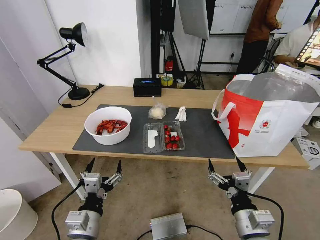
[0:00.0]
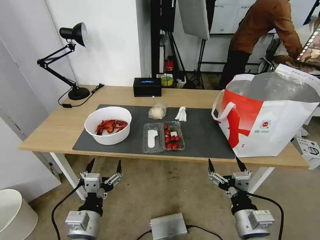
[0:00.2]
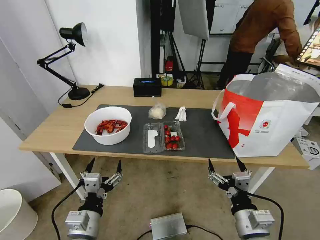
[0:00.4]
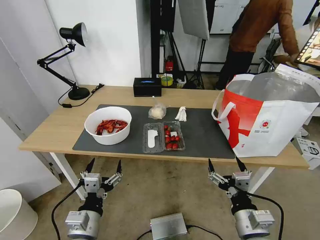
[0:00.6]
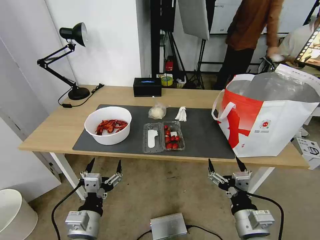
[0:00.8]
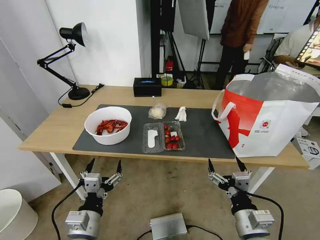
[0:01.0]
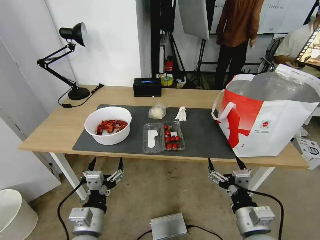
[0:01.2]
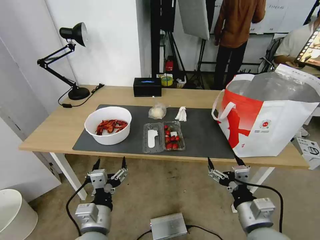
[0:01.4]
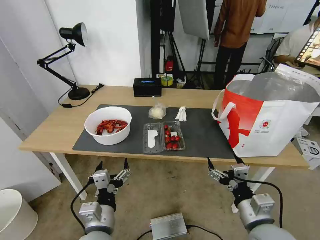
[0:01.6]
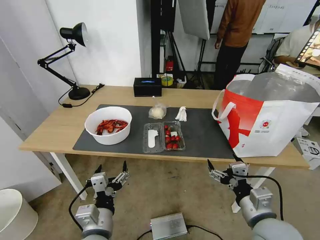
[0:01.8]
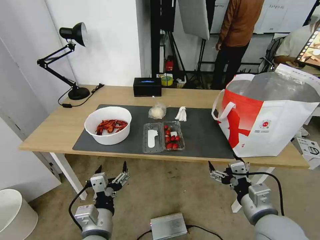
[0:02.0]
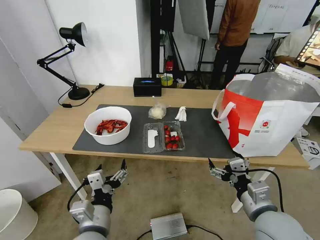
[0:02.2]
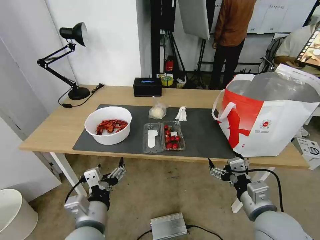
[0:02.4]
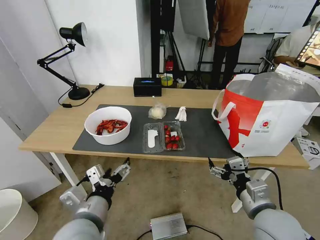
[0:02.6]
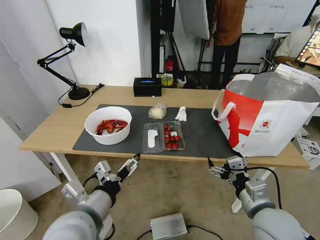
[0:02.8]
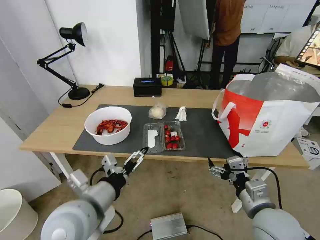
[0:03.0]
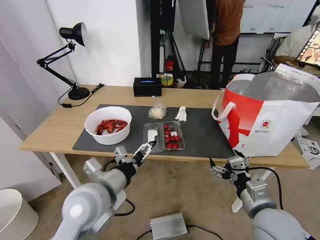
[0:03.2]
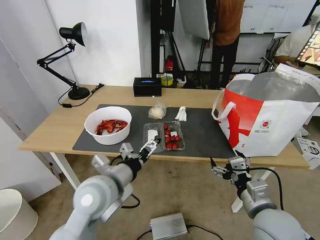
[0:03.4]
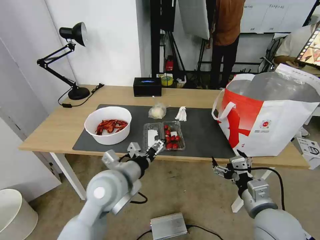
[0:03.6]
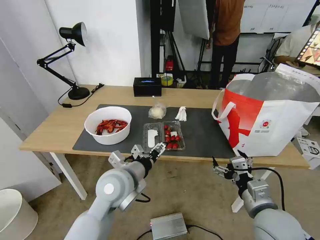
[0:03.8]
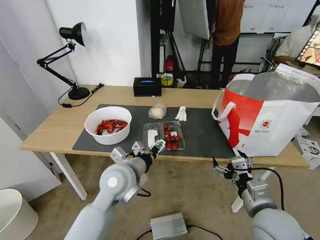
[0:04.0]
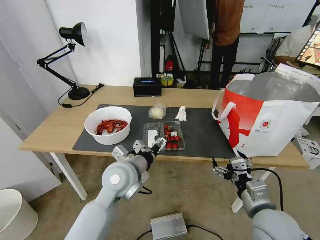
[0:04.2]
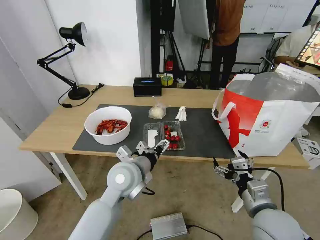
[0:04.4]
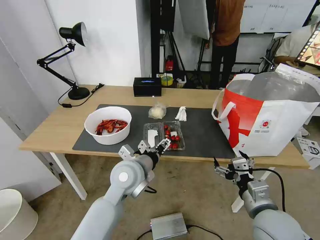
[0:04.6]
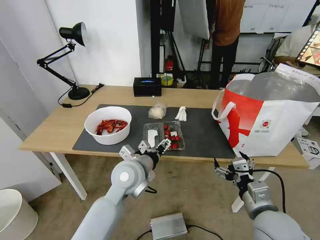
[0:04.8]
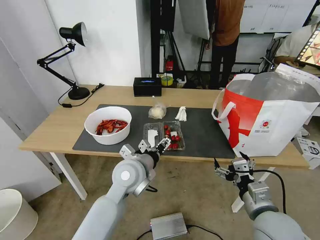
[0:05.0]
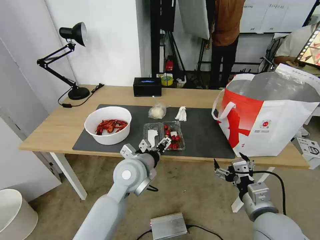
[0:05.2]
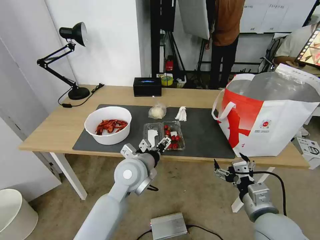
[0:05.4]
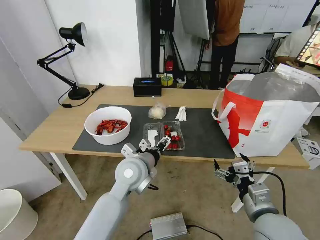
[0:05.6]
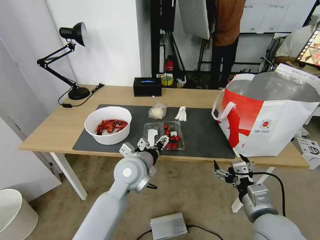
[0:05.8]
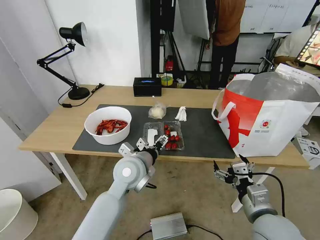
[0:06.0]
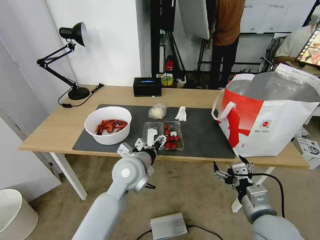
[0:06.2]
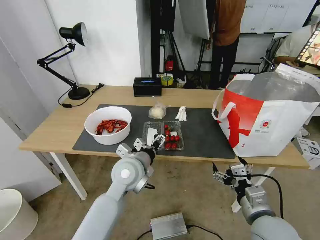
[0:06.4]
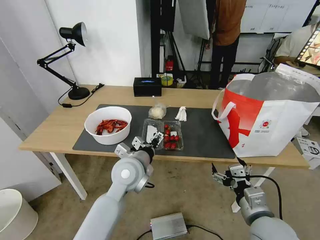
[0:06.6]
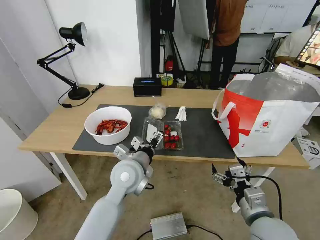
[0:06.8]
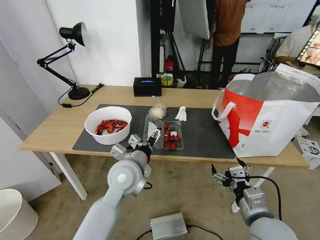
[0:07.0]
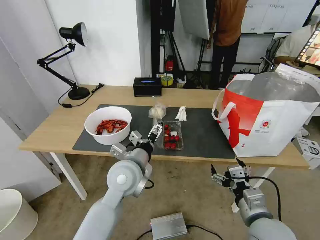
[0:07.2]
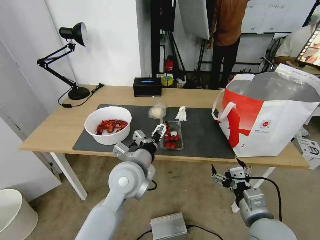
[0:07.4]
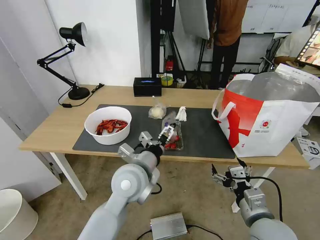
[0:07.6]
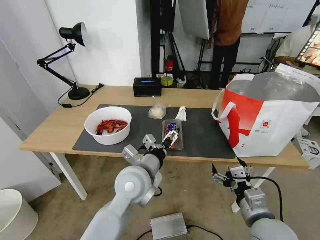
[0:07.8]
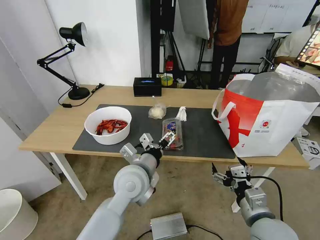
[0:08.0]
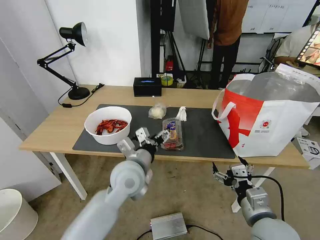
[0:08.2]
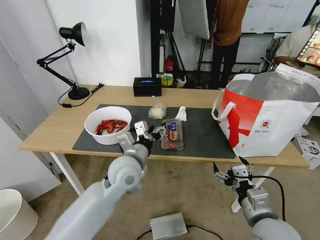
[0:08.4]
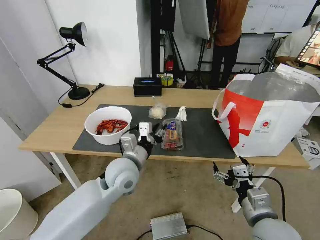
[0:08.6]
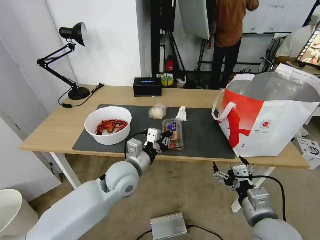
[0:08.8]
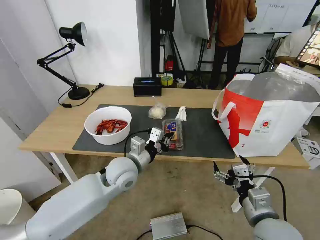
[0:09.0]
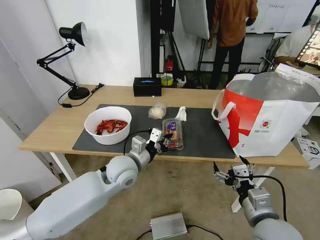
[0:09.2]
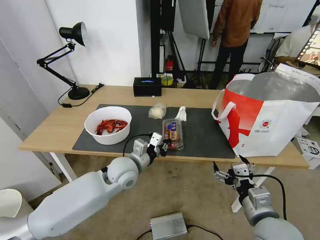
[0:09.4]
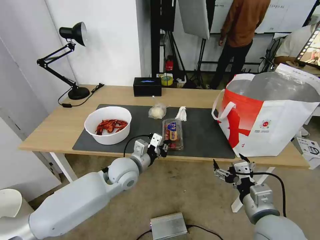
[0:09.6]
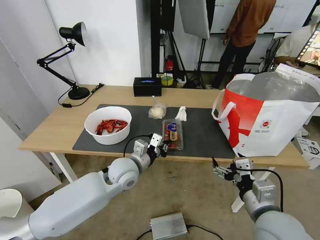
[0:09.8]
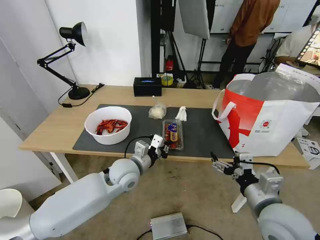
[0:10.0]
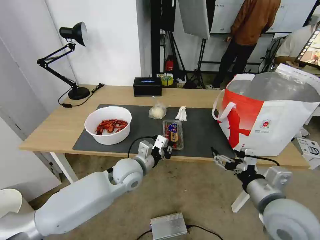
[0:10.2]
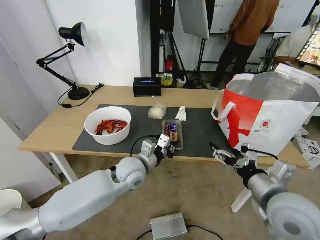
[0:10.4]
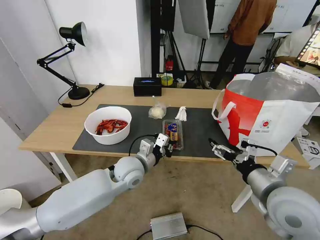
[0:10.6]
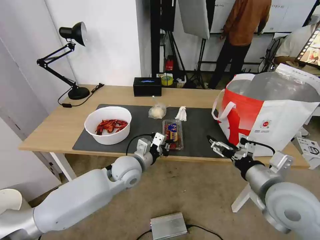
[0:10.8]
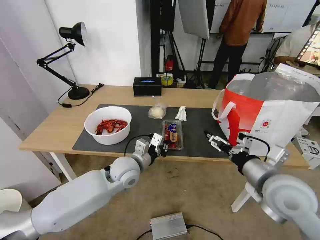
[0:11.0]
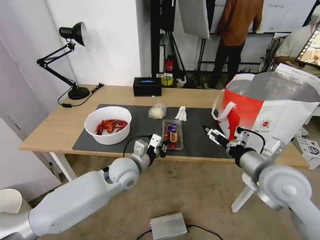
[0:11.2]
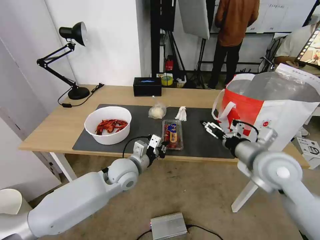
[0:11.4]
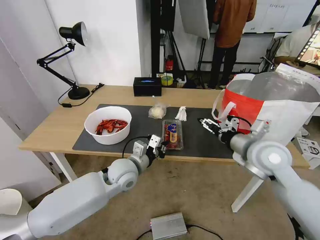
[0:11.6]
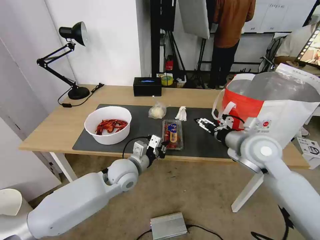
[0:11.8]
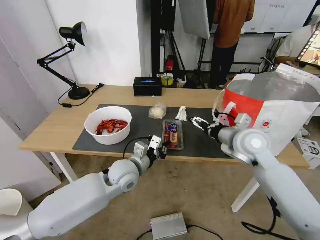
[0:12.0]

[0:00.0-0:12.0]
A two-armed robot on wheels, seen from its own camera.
Task of the whole recording: Pick up the trash from the table and place it into the takeout bag.
0:01.6 to 0:03.0: The left gripper moves upward, approximately 10 cm.
0:03.0 to 0:04.4: The left gripper shifts approximately 15 cm forward and to the right.
0:04.4 to 0:06.0: The grippers make only small movements.
0:06.0 to 0:07.6: The left gripper shifts by roughly 5 cm.
0:07.6 to 0:09.0: The left gripper goes about 5 cm forward, and closes its fingers.
0:09.0 to 0:10.4: The right gripper heads upward, covering roughly 5 cm.
0:10.4 to 0:12.0: The right gripper travels forward by about 20 cm.

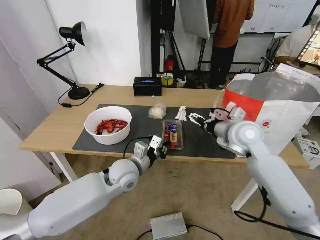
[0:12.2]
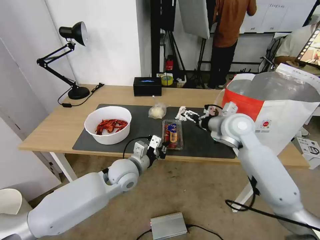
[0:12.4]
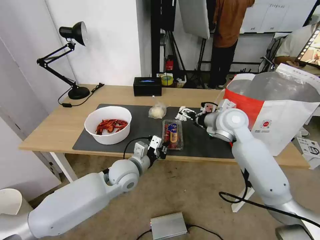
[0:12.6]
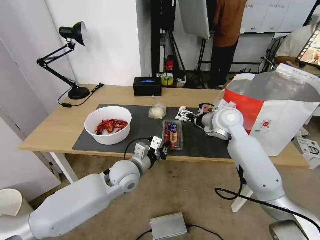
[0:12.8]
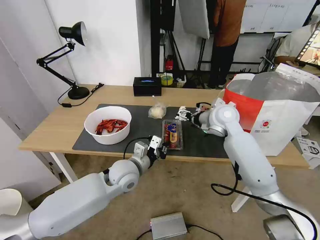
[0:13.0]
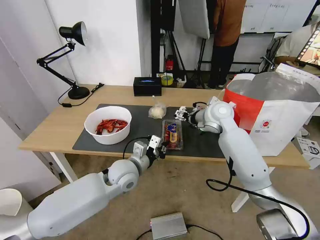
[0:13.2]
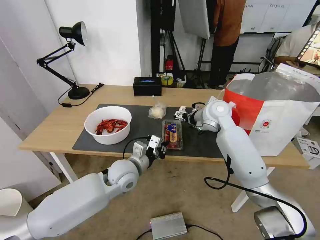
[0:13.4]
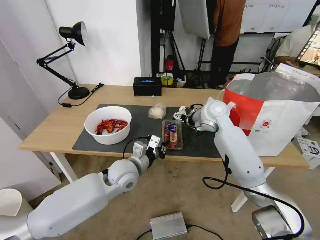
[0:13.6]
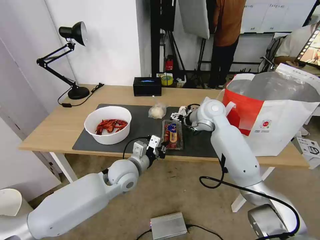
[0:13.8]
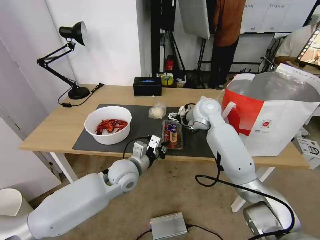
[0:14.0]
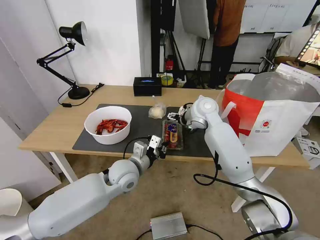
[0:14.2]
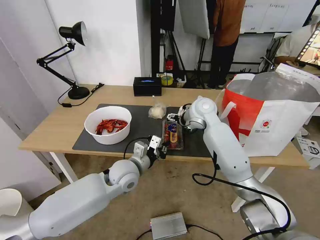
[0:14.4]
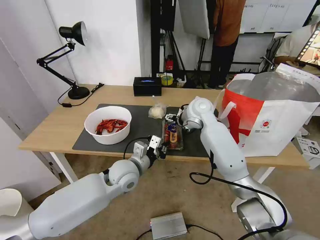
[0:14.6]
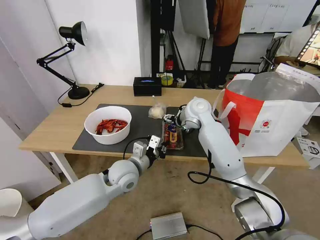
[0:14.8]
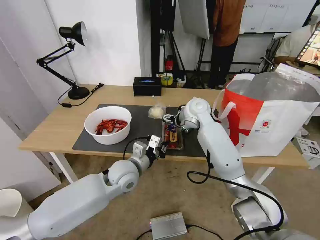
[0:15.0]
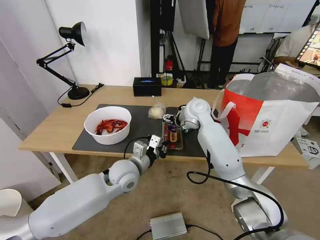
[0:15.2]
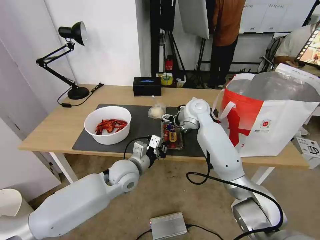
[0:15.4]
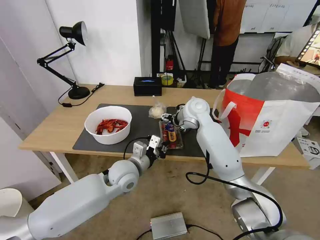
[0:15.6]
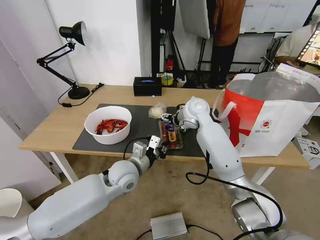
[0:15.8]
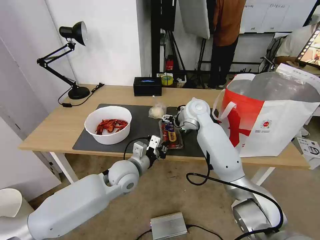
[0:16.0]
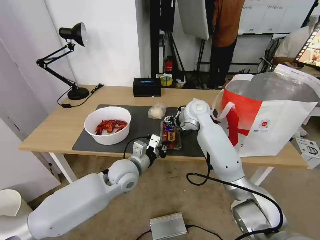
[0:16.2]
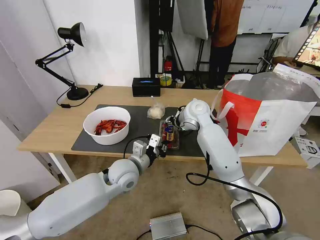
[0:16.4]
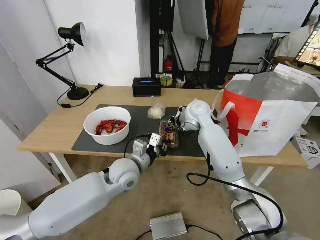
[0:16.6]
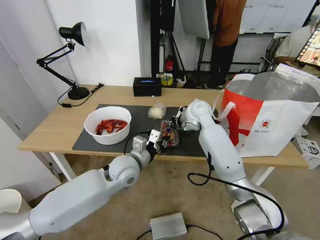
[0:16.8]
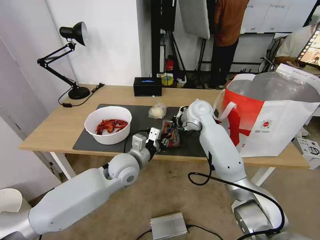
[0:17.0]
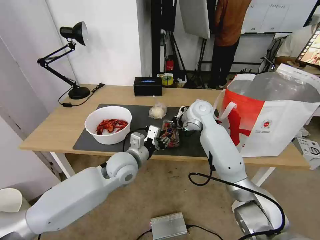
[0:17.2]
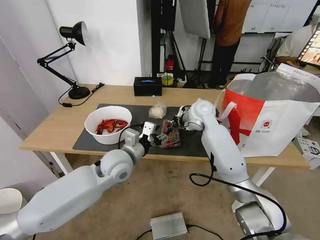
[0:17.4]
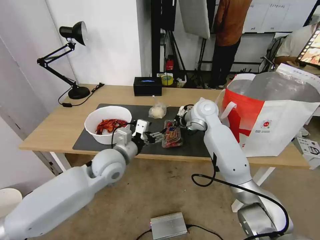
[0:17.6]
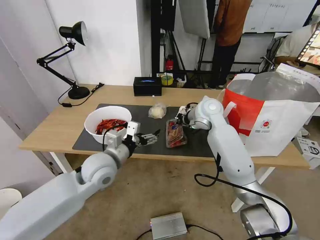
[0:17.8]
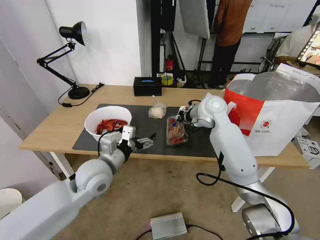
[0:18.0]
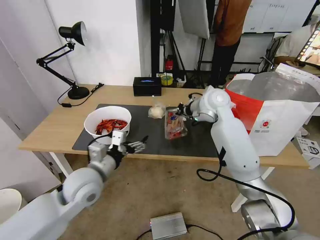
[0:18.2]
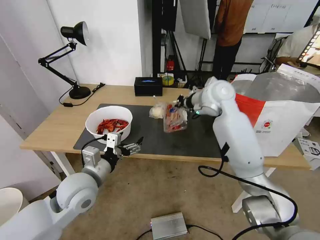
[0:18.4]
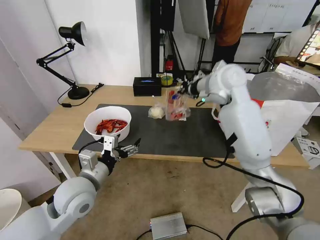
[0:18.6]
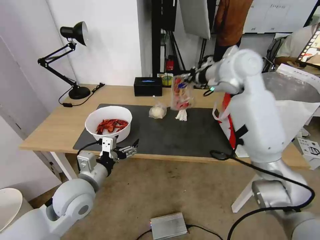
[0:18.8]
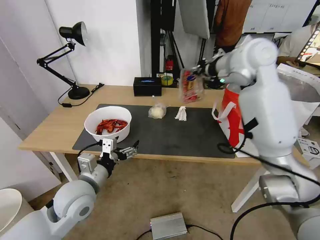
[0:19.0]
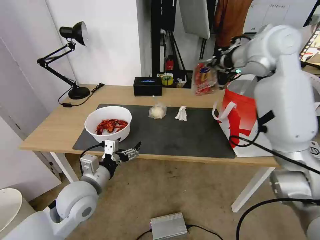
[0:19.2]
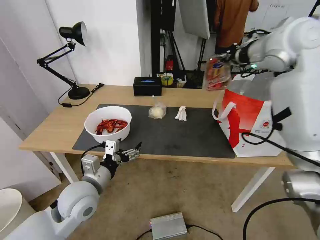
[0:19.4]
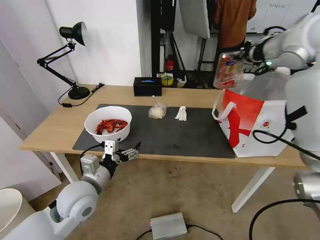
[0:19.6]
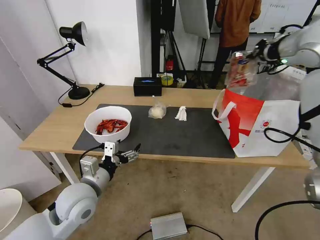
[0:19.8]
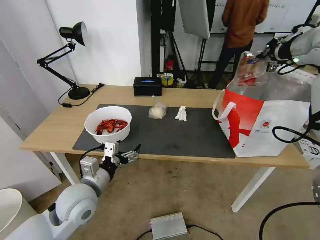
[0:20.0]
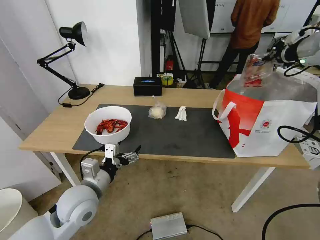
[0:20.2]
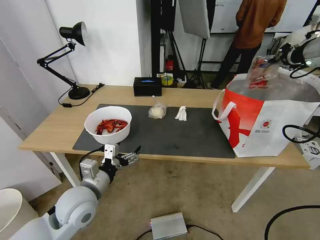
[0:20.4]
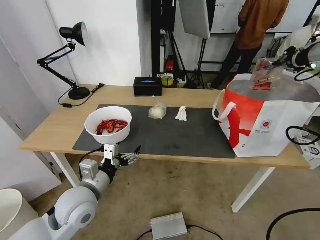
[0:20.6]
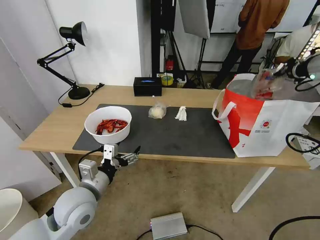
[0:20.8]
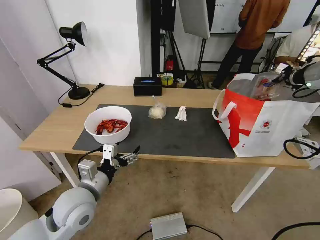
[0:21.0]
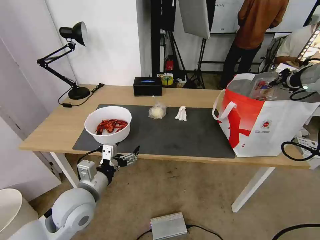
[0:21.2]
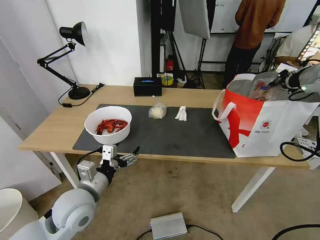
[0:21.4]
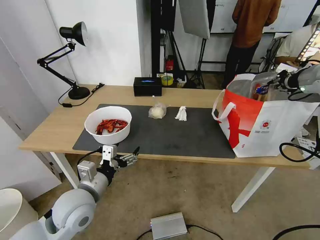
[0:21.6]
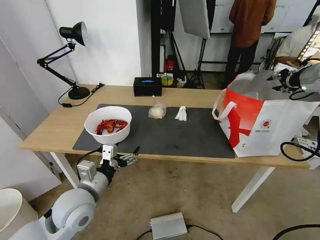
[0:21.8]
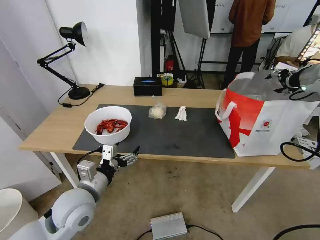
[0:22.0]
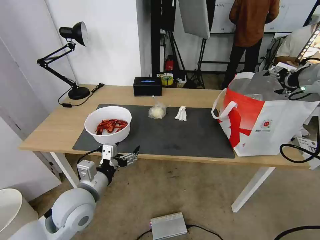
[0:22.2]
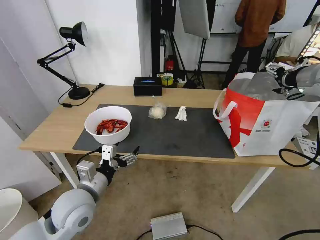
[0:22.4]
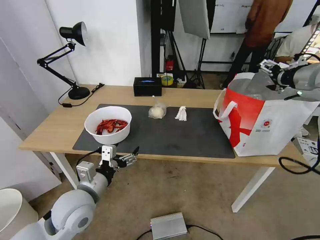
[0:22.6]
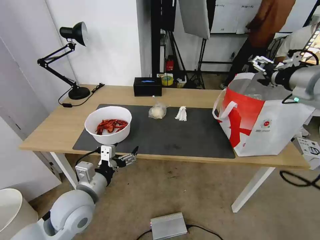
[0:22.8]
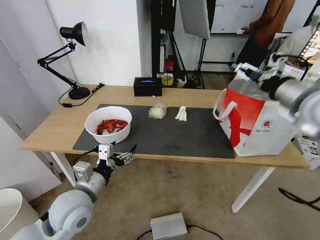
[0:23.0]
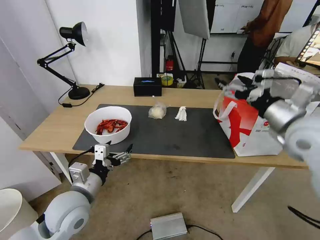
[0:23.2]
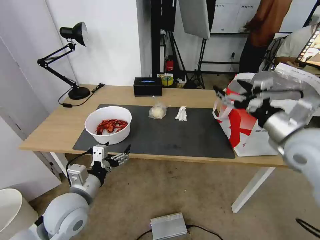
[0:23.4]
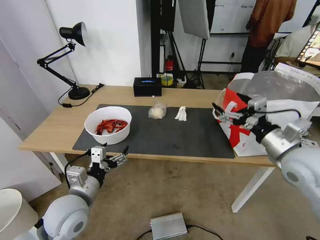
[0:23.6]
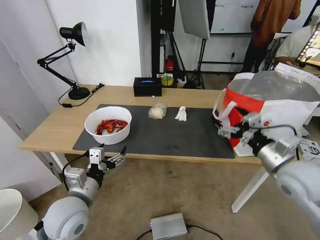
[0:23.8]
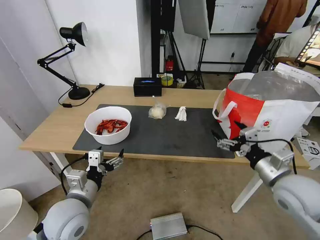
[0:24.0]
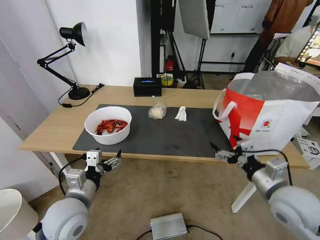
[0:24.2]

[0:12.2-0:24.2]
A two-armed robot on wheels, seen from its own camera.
Task of the whole recording: Pick up the trash from the table and place it into the takeout bag.
0:12.2 to 0:13.8: The right gripper goes about 15 cm forward and to the left.
0:13.8 to 0:15.2: There are only small adjustments of the grippers.
0:15.2 to 0:16.6: The right gripper closes its fingers.
0:16.6 to 0:18.2: The right gripper goes some 5 cm upward, and closes its fingers. The left gripper heads to the left and backward, covering approximately 10 cm, and opens.
0:18.2 to 0:19.8: The right gripper goes about 30 cm upward and to the right.
0:19.8 to 0:21.2: The right gripper travels to the right and downward by some 10 cm.
0:21.2 to 0:22.6: The right gripper shifts by about 5 cm, and opens.
0:22.6 to 0:24.2: The right gripper heads downward and backward, covering some 30 cm.
